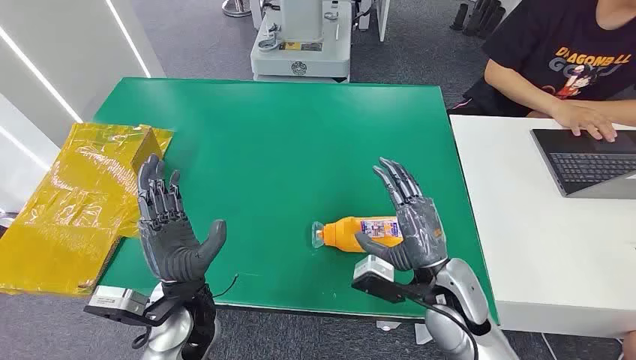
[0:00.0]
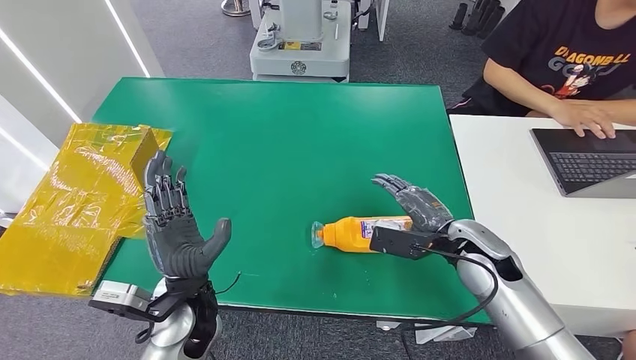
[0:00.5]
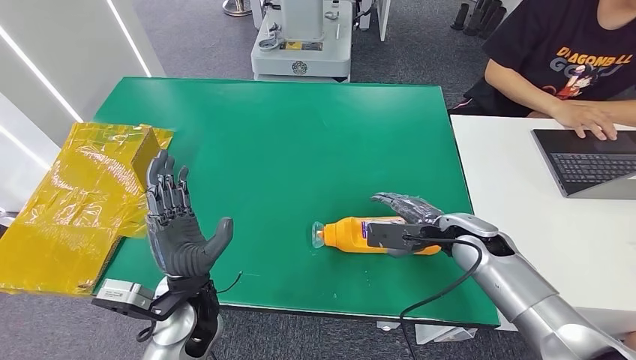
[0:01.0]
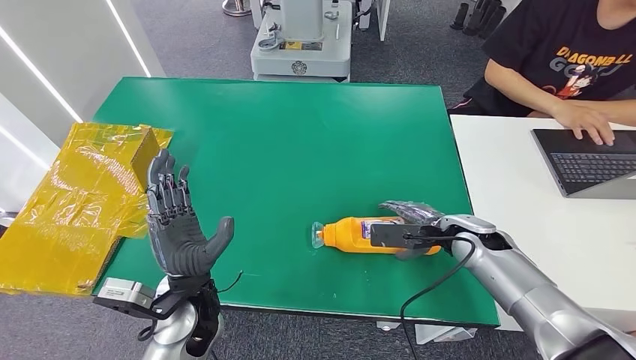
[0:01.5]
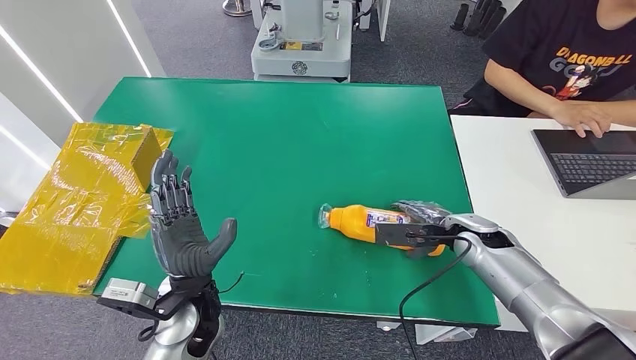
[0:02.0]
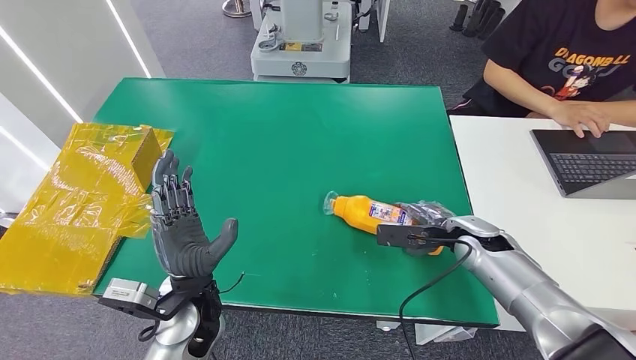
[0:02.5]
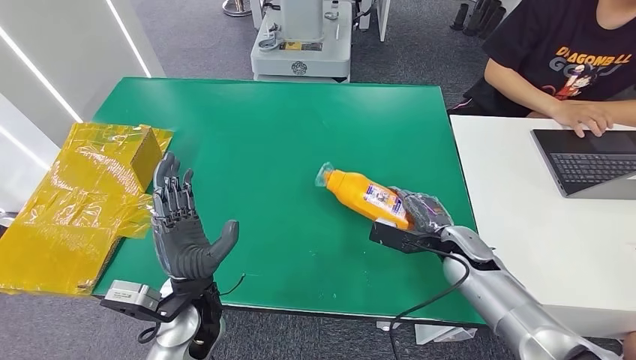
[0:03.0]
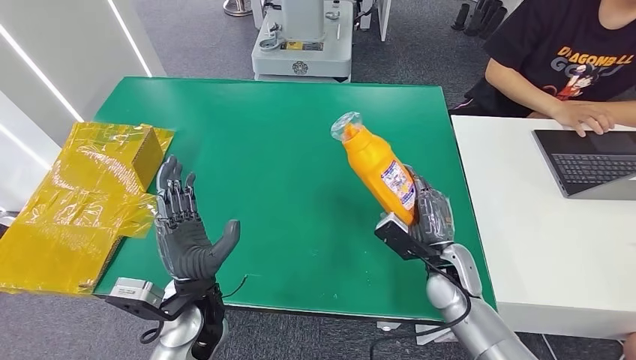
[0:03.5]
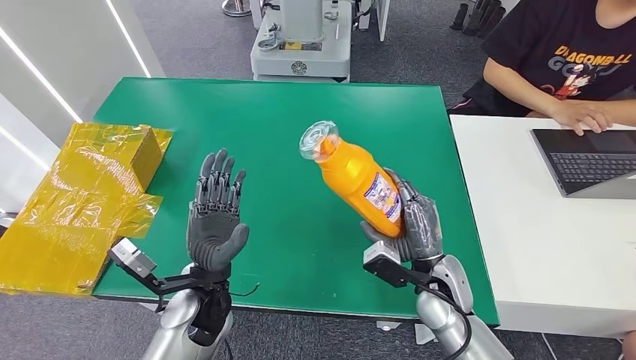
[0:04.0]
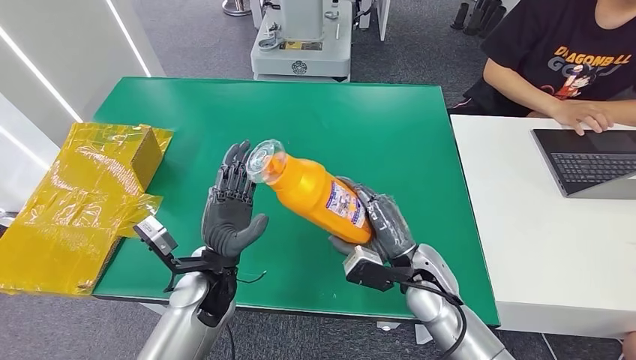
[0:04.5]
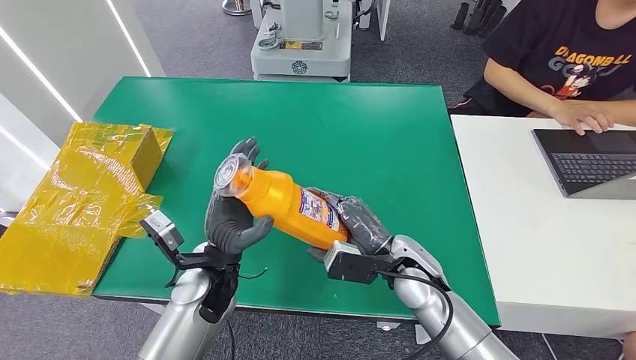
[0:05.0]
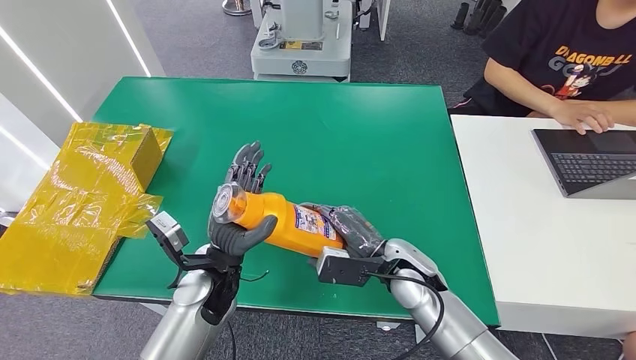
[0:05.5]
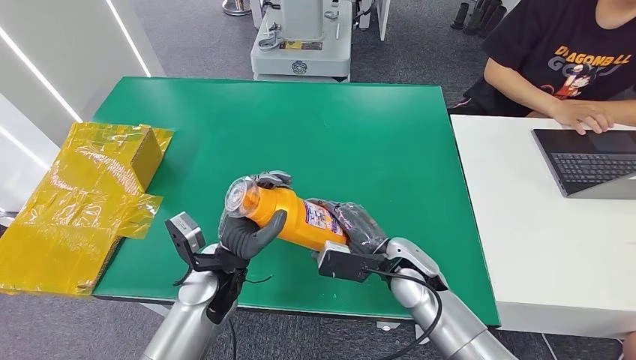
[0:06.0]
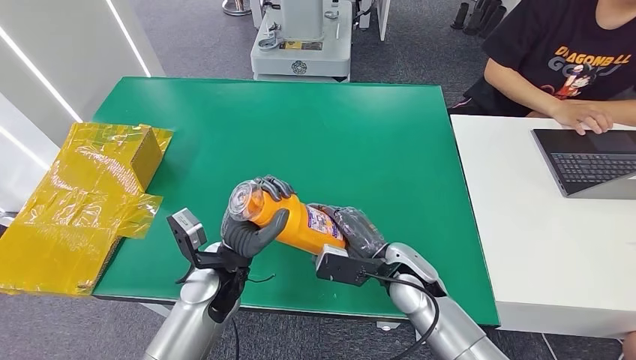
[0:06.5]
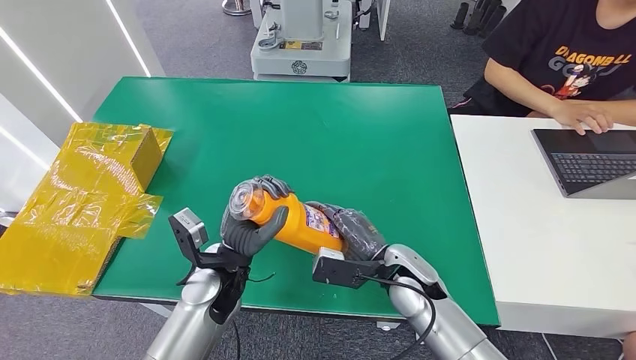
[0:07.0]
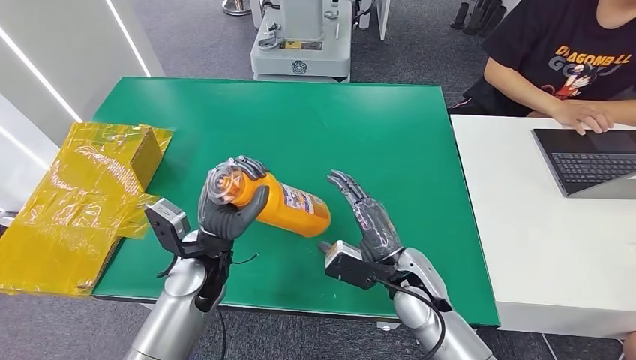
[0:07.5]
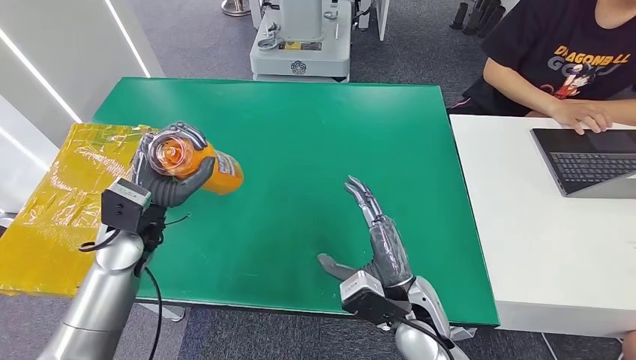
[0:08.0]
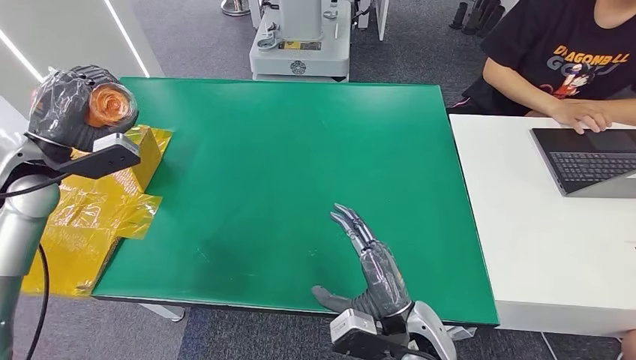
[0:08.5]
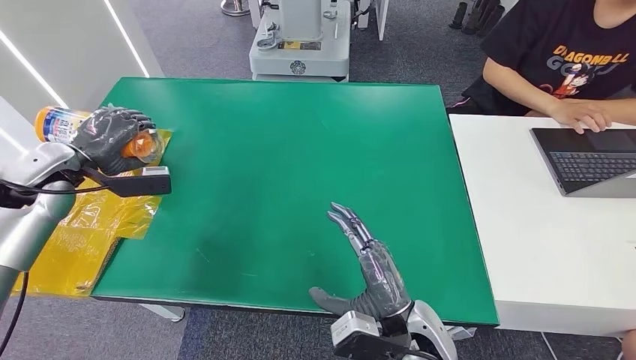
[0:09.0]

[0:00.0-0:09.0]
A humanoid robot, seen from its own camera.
Step, 0:00.0 to 0:04.5: Pick up the bottle from the table.
0:02.0 to 0:04.5: The right hand heads to the left and backward, covering about 15 cm.
0:07.0 to 0:09.0: The left hand travels to the left and upward by about 35 cm. The right hand moves backward, roughly 10 cm.

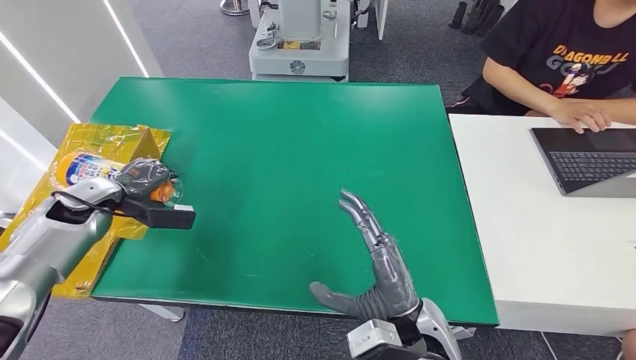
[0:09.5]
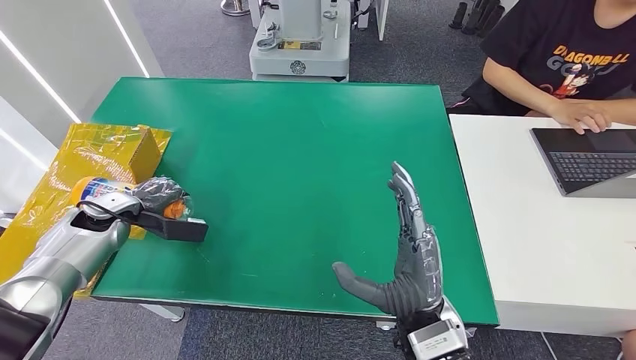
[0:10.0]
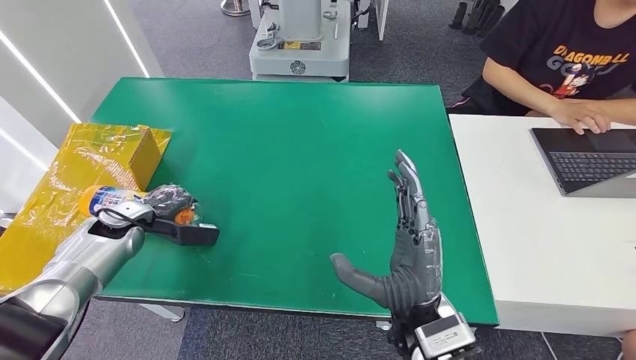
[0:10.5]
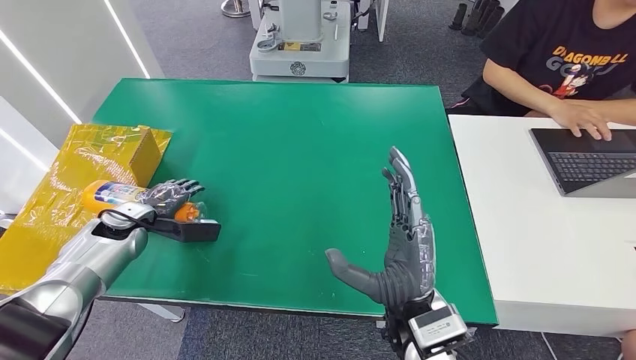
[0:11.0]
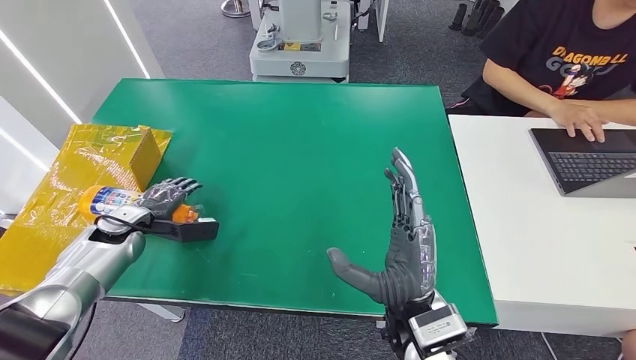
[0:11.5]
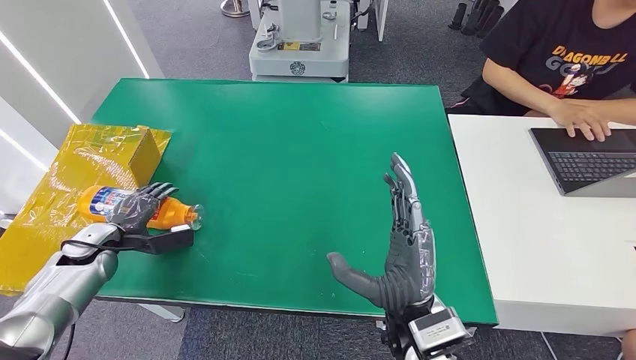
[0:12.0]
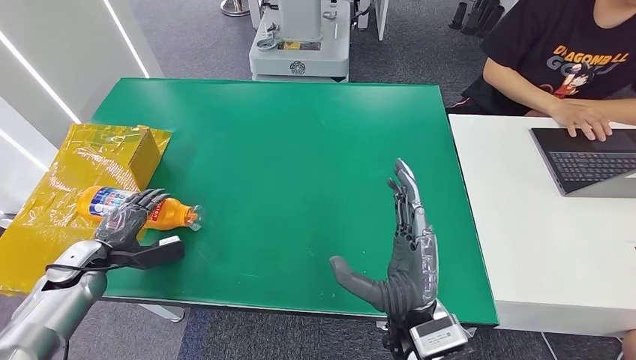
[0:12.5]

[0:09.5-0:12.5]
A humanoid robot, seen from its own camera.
Step, 0:09.5 to 0:12.5: Turn the bottle to the front side.
0:09.5 to 0:11.0: The left hand goes roughly 5 cm downward.
0:11.0 to 0:12.5: The left hand is displaced backward and to the left by roughly 10 cm.
